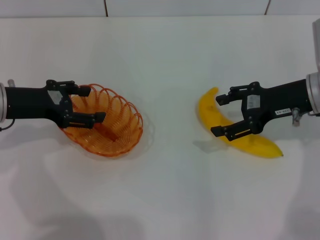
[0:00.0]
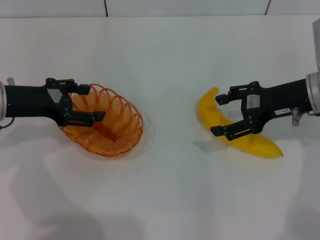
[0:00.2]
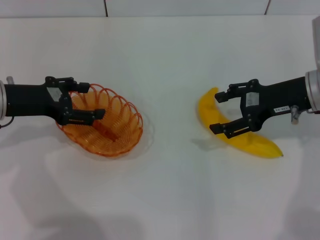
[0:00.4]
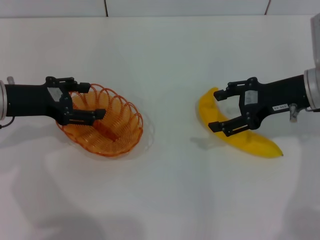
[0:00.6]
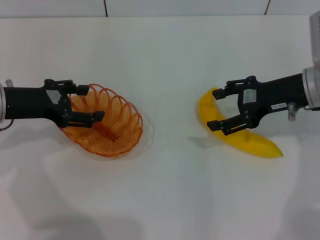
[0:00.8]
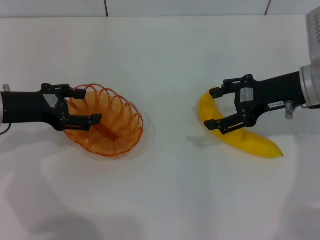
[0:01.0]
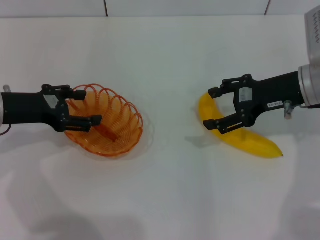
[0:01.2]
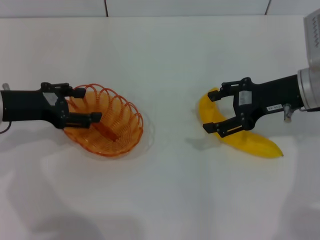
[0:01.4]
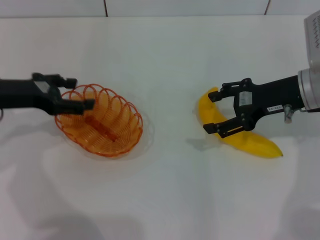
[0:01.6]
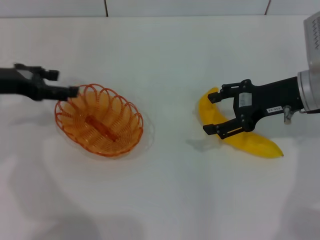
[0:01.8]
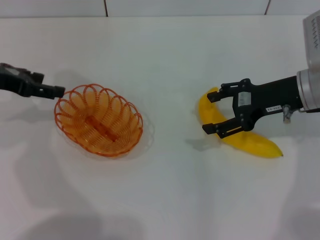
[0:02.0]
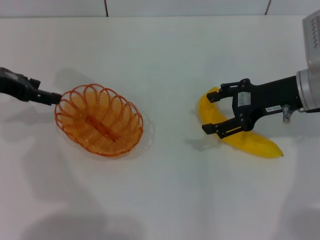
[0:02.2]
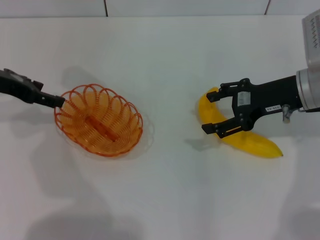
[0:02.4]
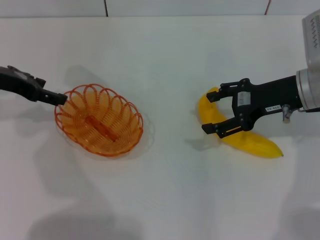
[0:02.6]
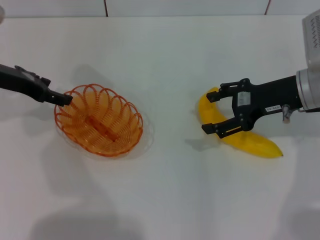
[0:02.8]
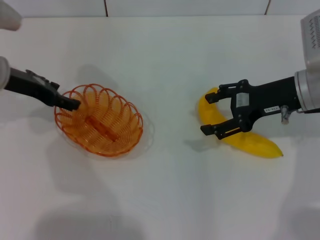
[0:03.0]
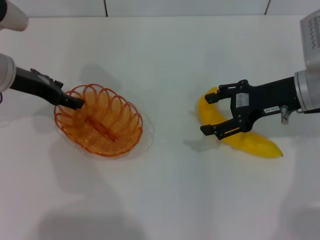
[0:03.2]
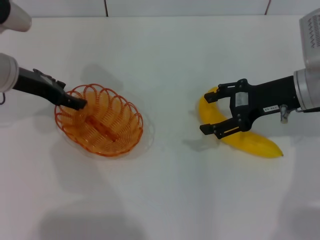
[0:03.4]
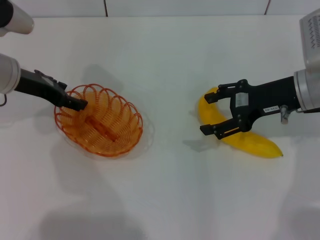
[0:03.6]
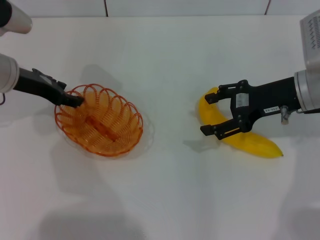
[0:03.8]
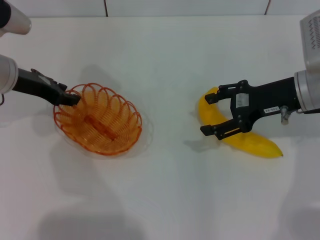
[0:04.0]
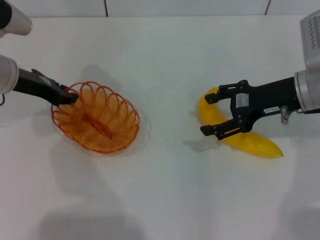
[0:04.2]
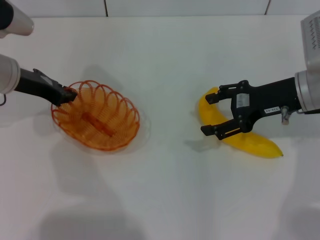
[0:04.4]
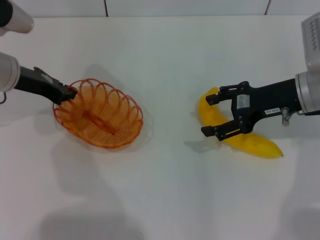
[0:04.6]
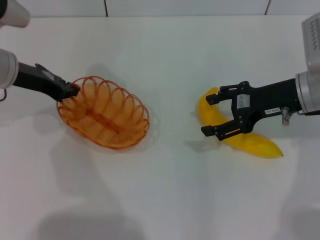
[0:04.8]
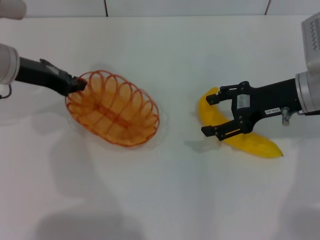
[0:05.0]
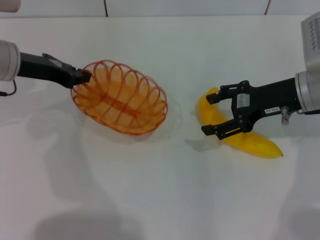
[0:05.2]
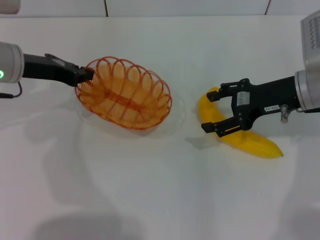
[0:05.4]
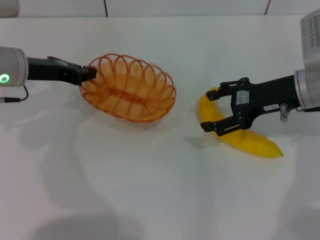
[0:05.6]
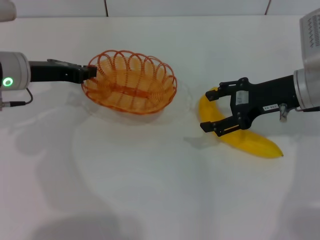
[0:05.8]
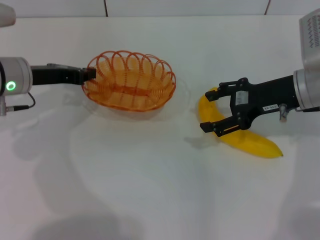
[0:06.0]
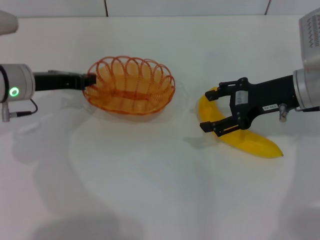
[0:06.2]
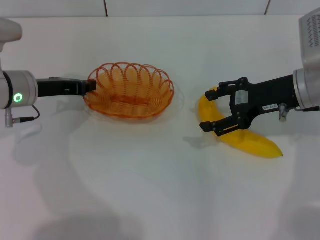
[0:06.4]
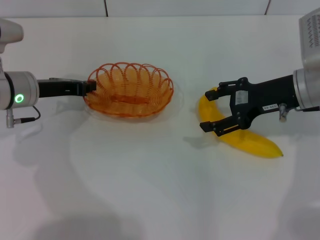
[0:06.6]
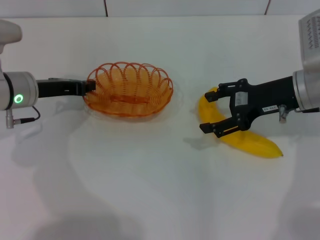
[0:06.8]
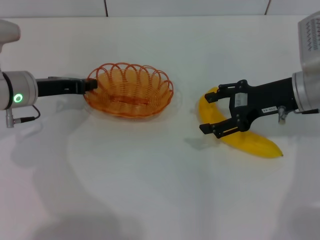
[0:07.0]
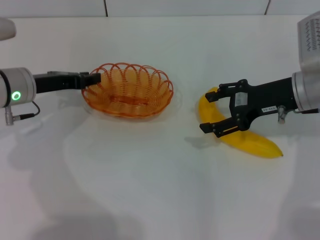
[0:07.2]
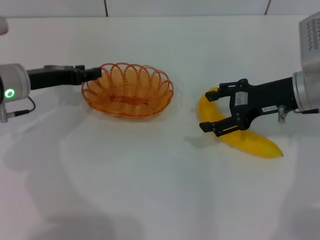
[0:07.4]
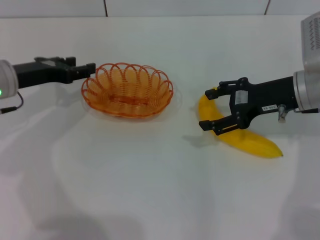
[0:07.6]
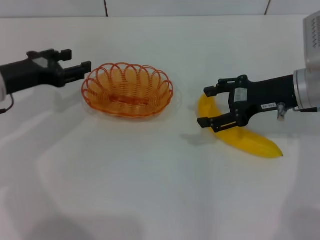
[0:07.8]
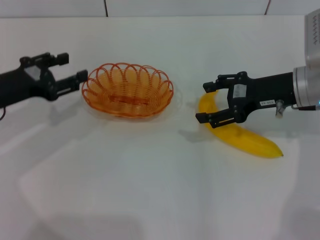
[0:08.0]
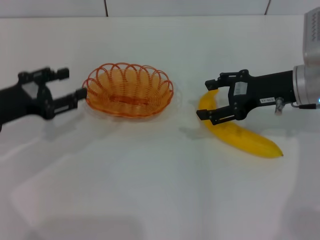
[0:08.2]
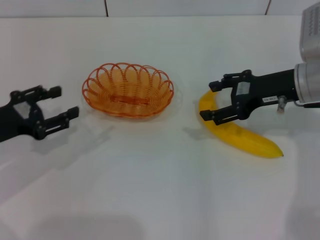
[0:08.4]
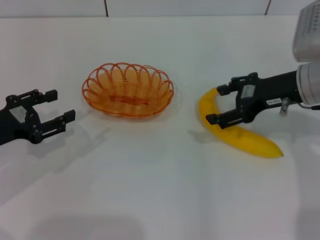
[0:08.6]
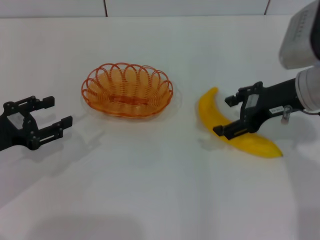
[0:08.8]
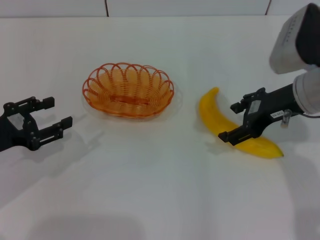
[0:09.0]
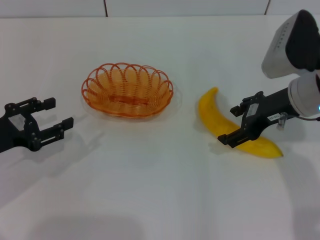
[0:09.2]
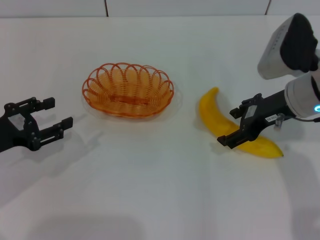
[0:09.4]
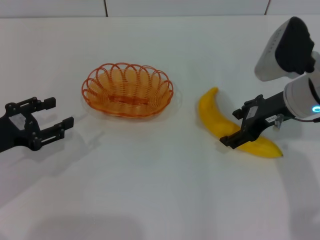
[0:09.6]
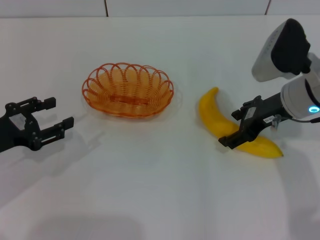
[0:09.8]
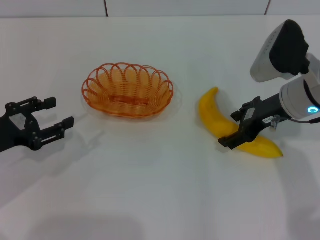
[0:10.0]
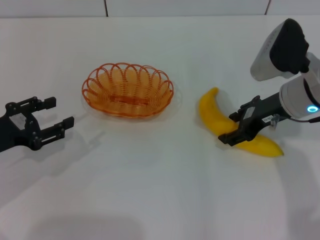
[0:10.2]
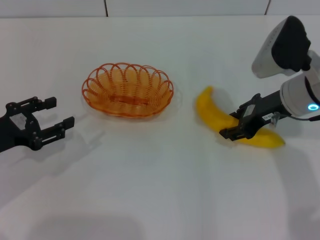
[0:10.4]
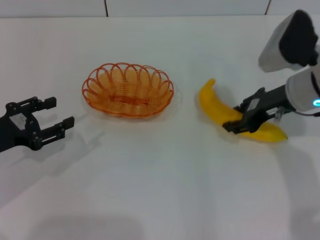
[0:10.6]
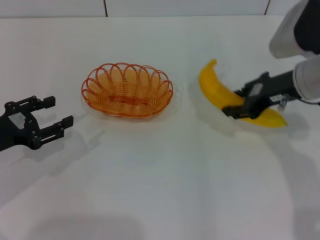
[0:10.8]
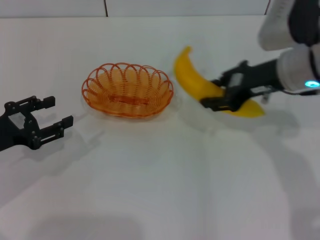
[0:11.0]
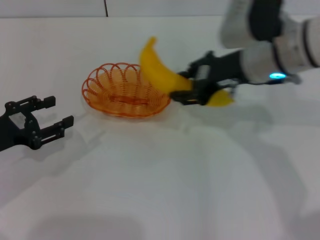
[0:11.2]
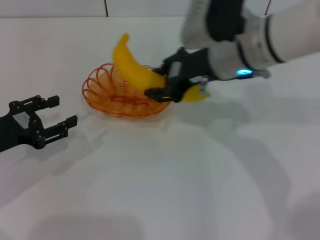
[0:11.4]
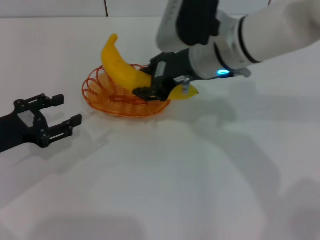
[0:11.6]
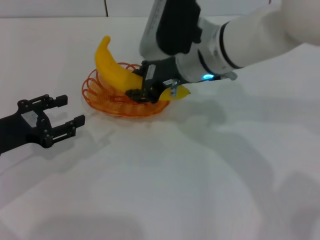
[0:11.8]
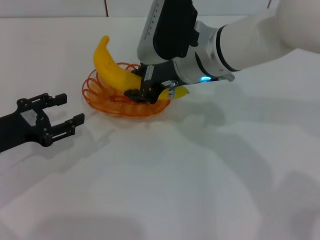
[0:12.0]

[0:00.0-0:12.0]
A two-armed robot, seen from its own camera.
Step, 0:00.0 to 0:04.6: Pick up the basket with the left gripper.
Step, 0:05.0 to 0:07.4: Place the basket in the center of view with the left gripper.
Step, 0:07.6 to 0:10.8: Pick up the banana with the right gripper.
0:00.0 to 0:01.6: The grippers move only a little.
0:01.6 to 0:03.0: The left gripper moves roughly 5 cm.
0:03.0 to 0:04.4: The left gripper closes its fingers.
0:06.0 to 0:07.6: The left gripper opens up.
0:07.6 to 0:09.0: The left gripper travels backward and to the left by approximately 10 cm.
0:09.0 to 0:10.4: The right gripper closes its fingers.
0:10.4 to 0:12.0: The right gripper shifts some 15 cm to the left, and closes up.

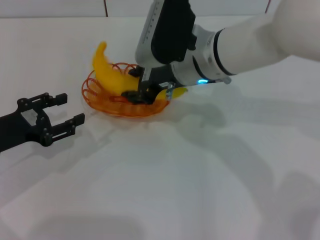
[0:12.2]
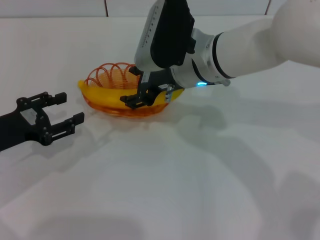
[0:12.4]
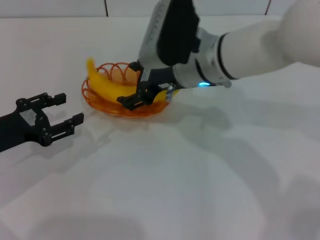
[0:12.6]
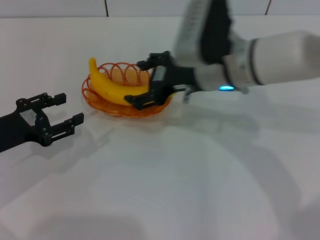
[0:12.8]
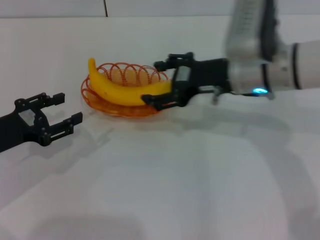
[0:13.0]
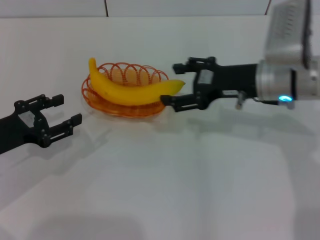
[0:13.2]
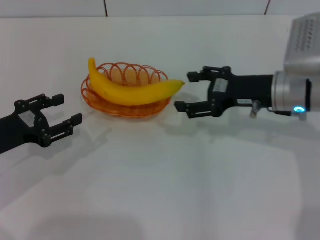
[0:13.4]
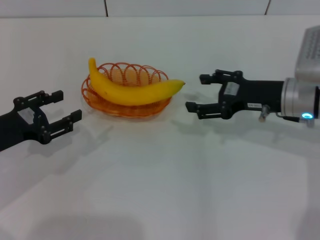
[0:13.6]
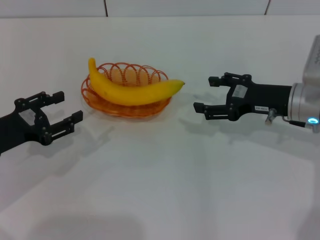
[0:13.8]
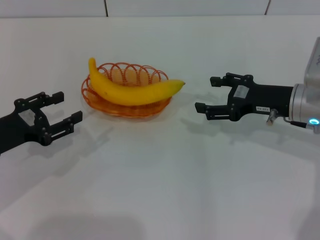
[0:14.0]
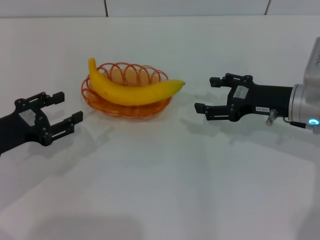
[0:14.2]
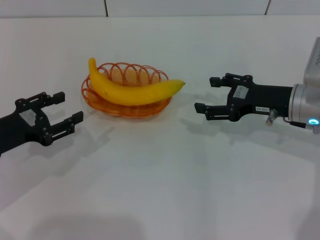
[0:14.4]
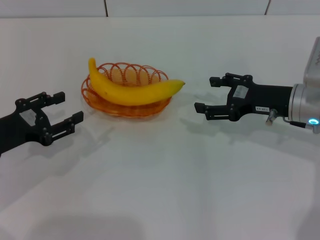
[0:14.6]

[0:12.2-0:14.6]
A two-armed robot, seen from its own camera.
0:12.2 to 0:13.4: The right gripper shifts some 15 cm to the right, and opens up.
0:13.4 to 0:14.6: The grippers move only a little.

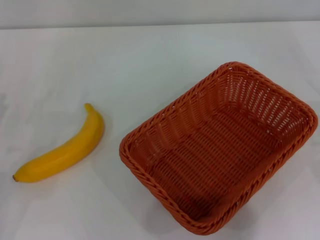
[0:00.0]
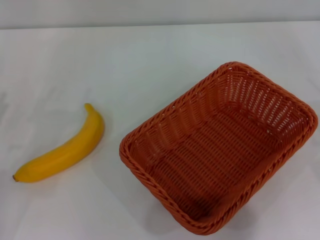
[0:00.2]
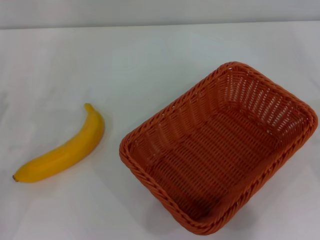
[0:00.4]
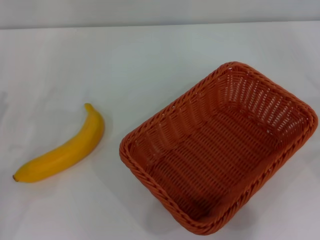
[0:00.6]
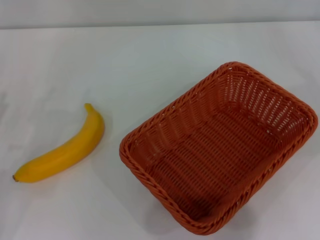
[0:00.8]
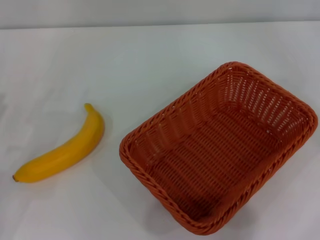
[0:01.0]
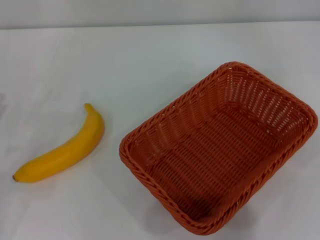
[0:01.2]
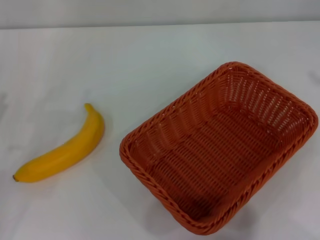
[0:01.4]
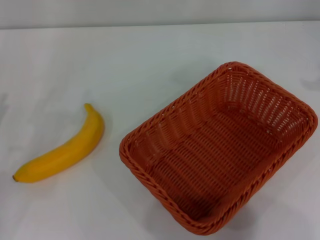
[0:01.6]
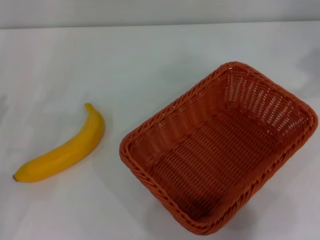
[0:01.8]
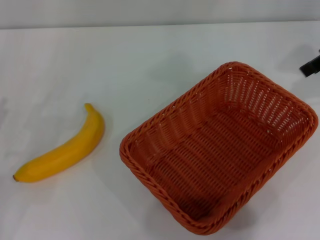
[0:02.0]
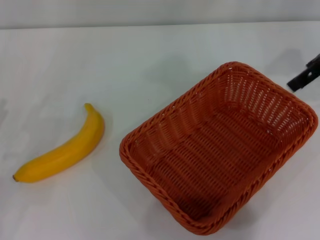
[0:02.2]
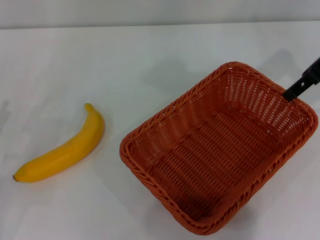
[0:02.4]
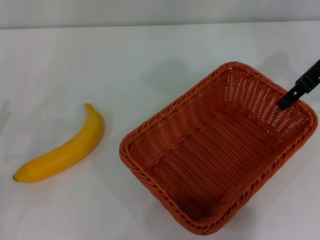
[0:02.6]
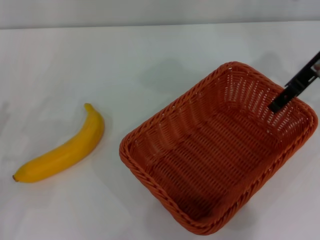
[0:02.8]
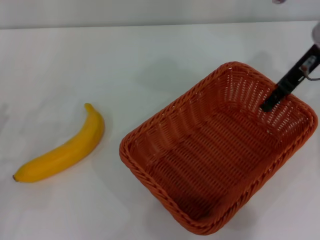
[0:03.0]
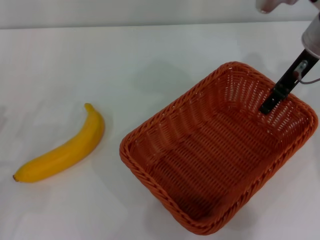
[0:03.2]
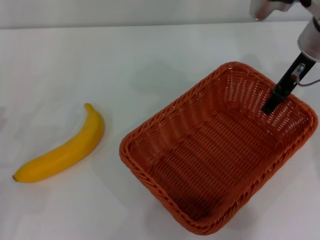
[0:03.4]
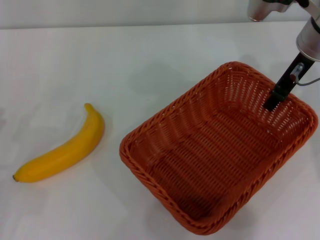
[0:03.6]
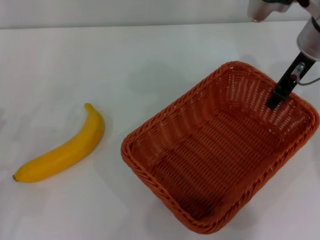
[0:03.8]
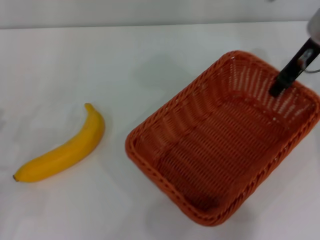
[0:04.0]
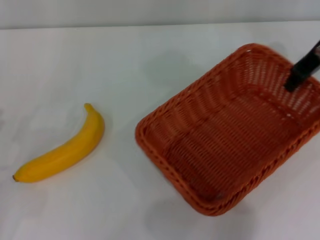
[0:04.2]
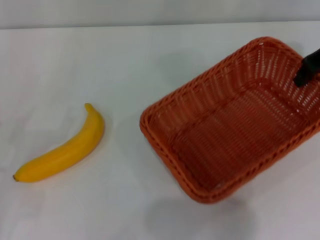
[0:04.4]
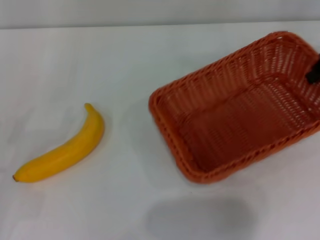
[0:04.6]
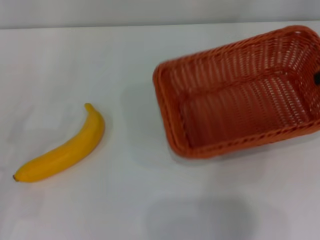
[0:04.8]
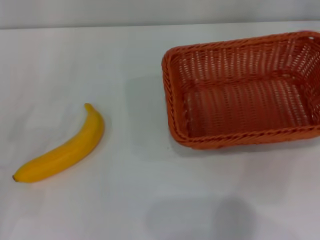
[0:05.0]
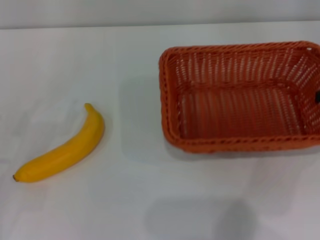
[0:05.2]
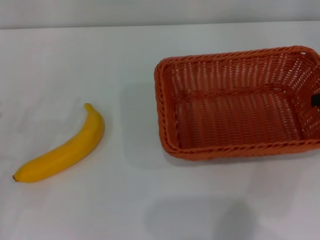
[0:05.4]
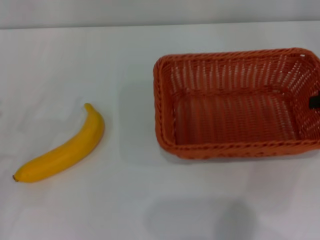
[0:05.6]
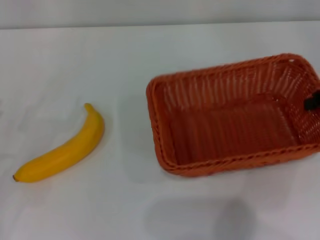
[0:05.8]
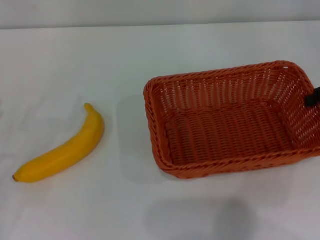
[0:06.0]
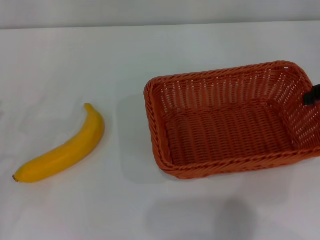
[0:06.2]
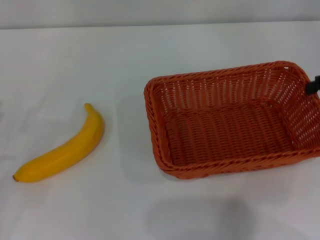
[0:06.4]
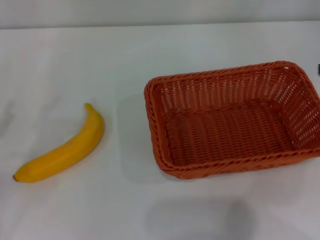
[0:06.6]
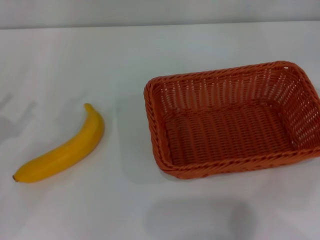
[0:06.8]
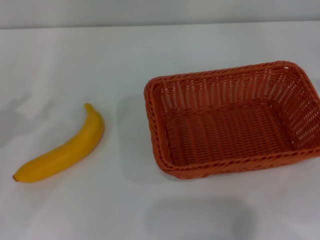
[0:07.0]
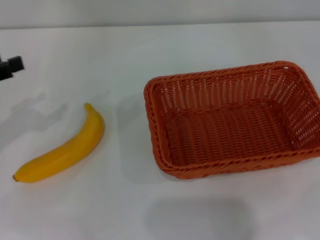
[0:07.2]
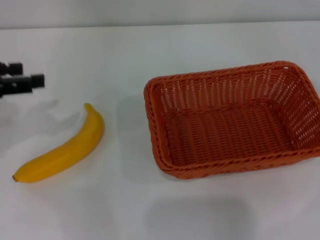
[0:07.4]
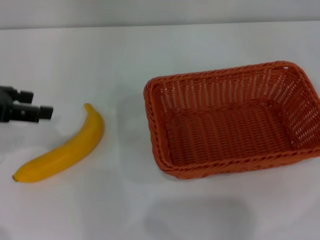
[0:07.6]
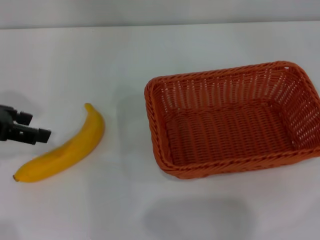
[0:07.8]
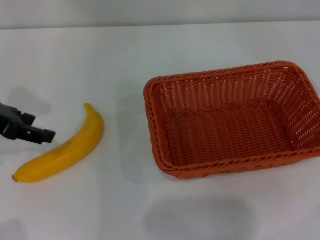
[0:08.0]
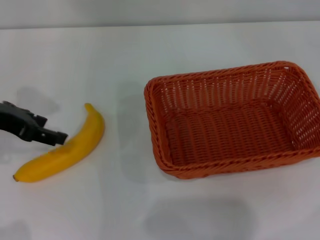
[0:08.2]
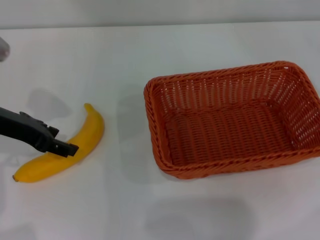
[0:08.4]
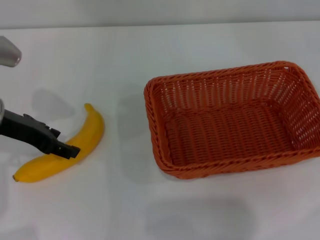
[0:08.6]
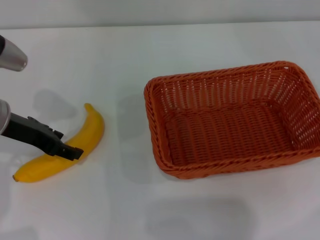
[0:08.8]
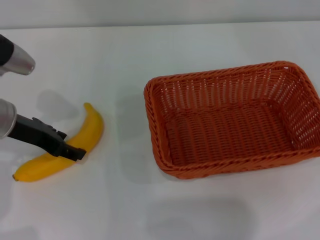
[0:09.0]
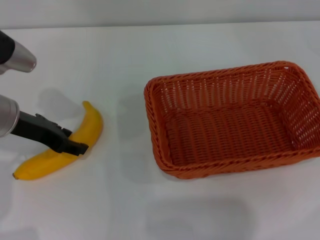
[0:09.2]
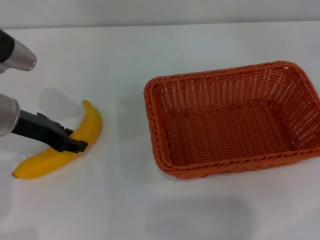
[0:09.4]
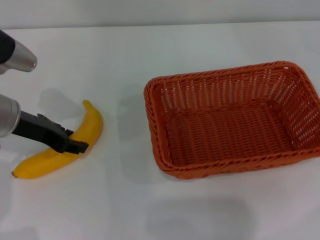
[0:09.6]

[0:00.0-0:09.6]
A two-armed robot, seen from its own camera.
Step, 0:00.0 to 0:04.2: Pick up the light basket with the right gripper.
Step, 0:04.6 to 0:06.4: Place the light basket in the center of view with the right gripper.
0:01.6 to 0:03.2: The right gripper goes some 20 cm to the left and downward.
0:03.2 to 0:04.8: The right gripper is displaced to the right by roughly 15 cm, and closes.
0:04.8 to 0:06.4: The right gripper opens.
0:06.4 to 0:08.0: The left gripper travels upward, forward and to the right by about 15 cm.
0:08.0 to 0:09.6: The left gripper goes approximately 10 cm downward and to the right, and closes its fingers.
